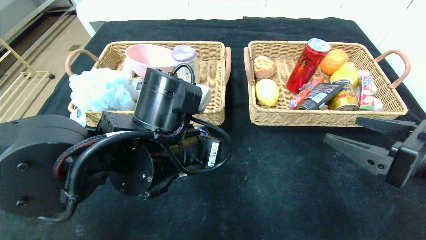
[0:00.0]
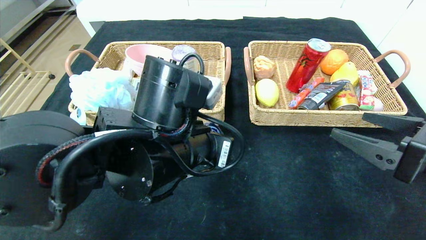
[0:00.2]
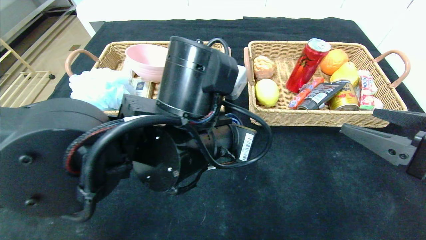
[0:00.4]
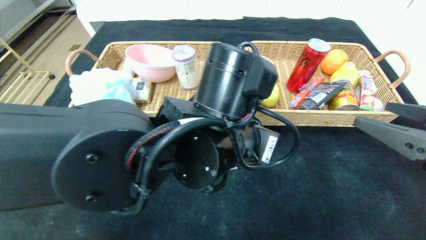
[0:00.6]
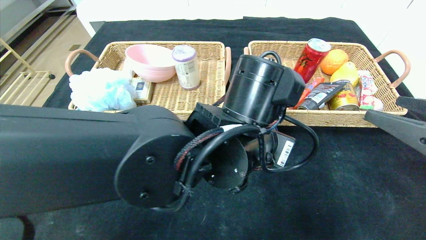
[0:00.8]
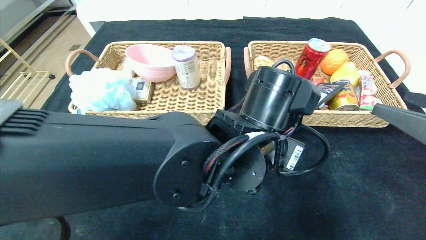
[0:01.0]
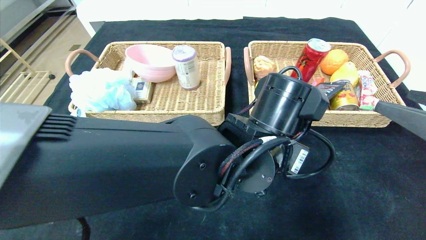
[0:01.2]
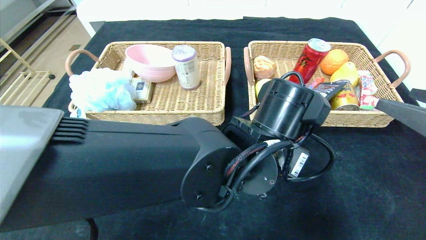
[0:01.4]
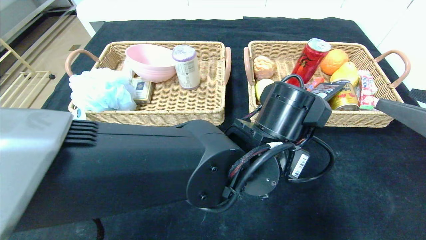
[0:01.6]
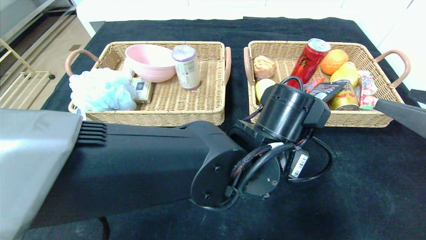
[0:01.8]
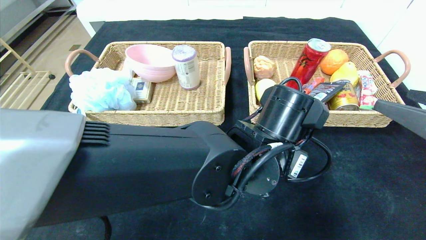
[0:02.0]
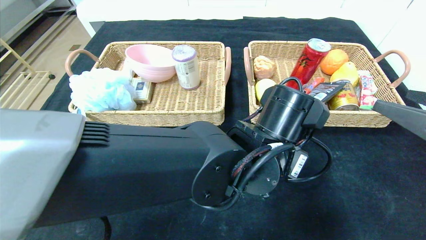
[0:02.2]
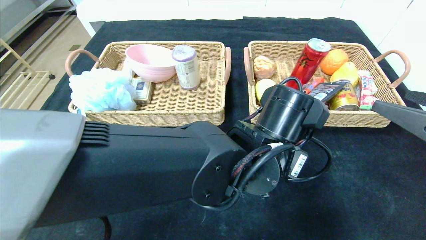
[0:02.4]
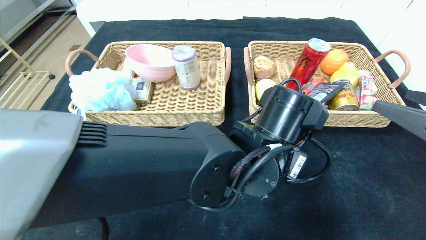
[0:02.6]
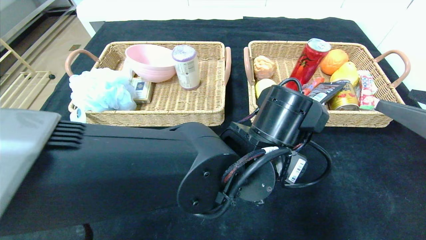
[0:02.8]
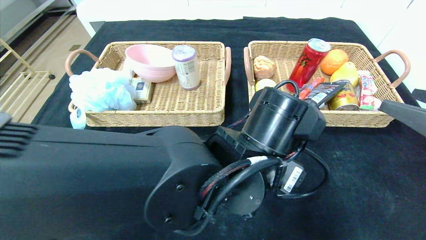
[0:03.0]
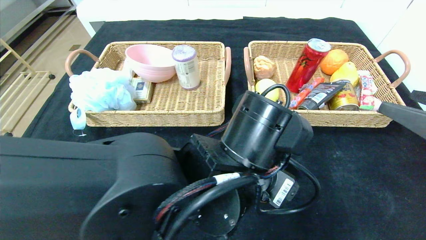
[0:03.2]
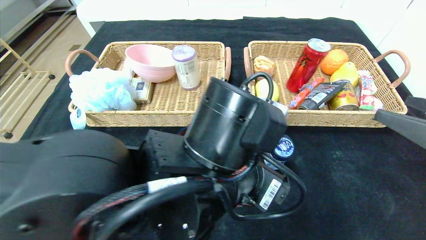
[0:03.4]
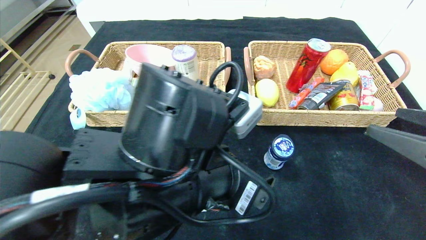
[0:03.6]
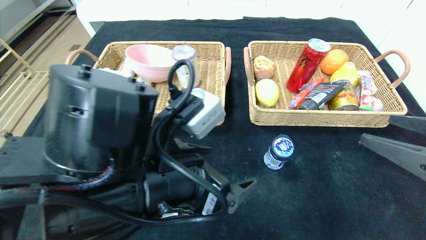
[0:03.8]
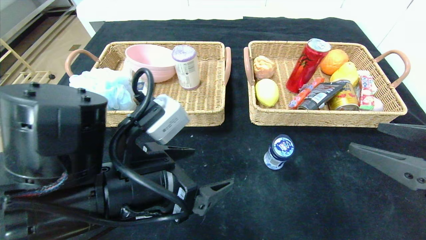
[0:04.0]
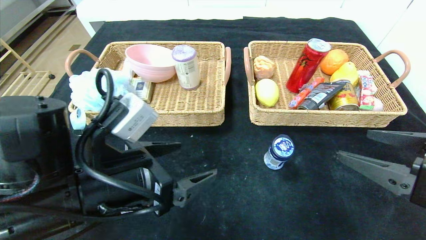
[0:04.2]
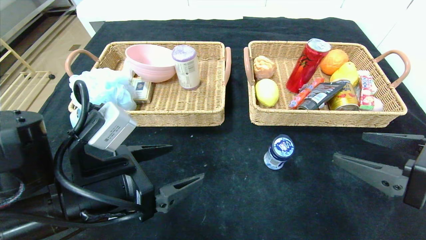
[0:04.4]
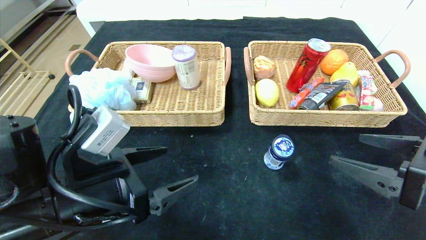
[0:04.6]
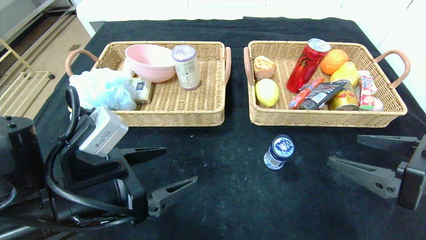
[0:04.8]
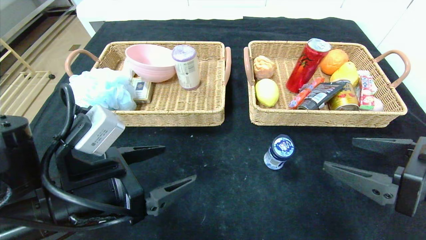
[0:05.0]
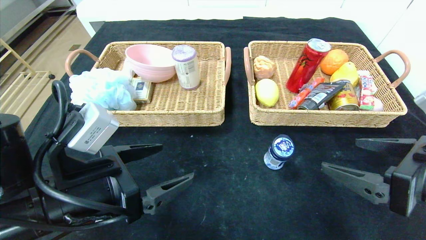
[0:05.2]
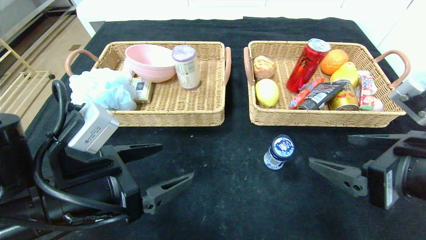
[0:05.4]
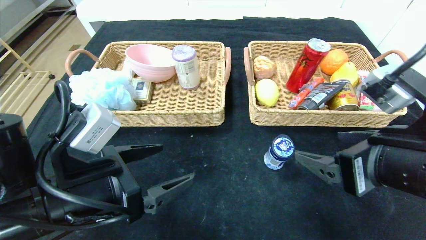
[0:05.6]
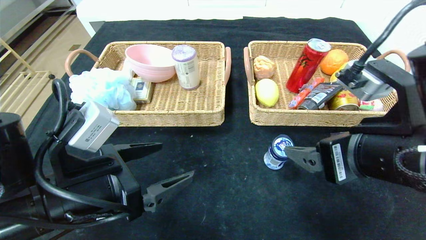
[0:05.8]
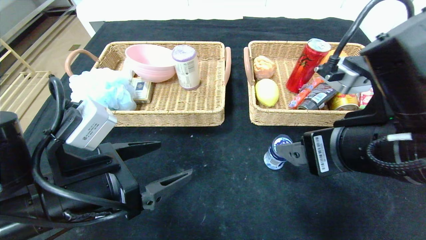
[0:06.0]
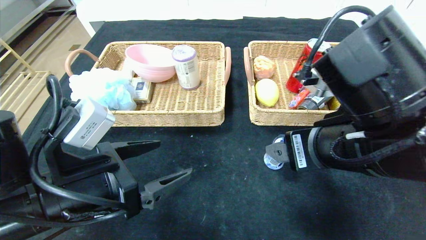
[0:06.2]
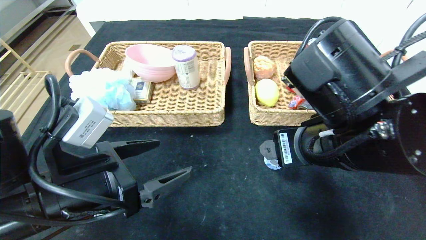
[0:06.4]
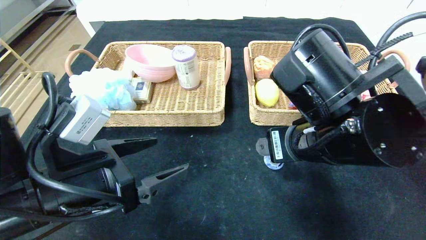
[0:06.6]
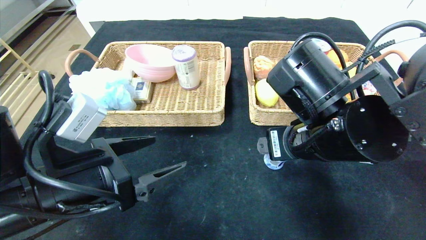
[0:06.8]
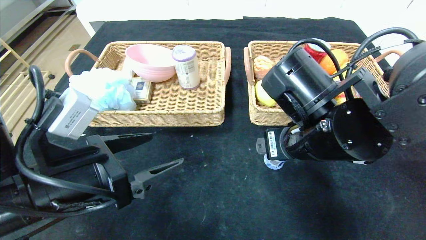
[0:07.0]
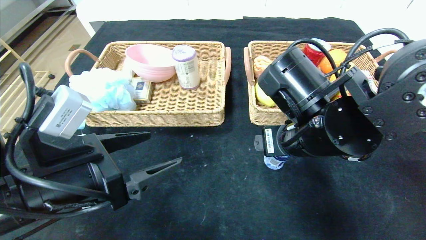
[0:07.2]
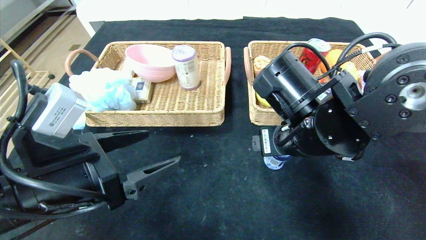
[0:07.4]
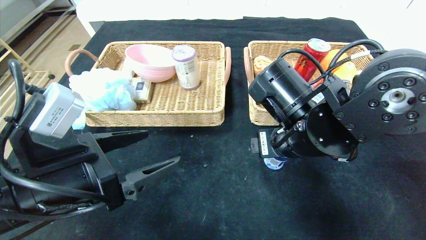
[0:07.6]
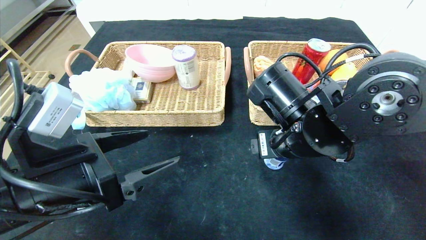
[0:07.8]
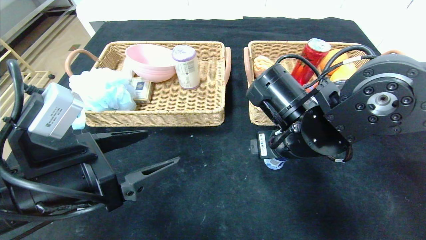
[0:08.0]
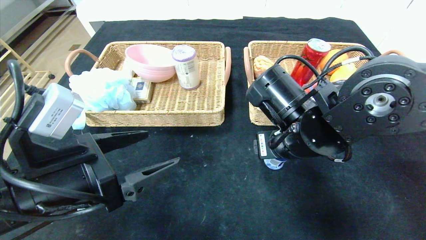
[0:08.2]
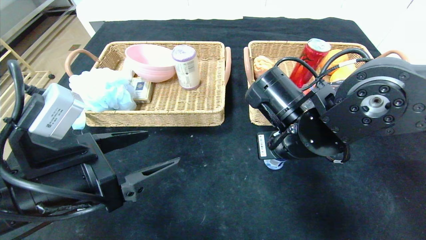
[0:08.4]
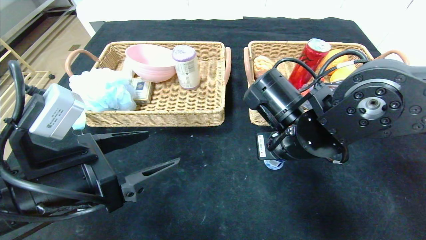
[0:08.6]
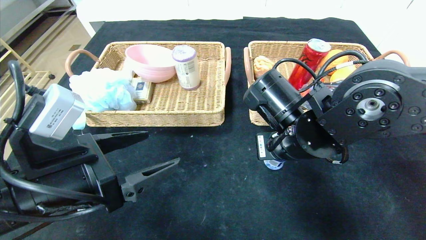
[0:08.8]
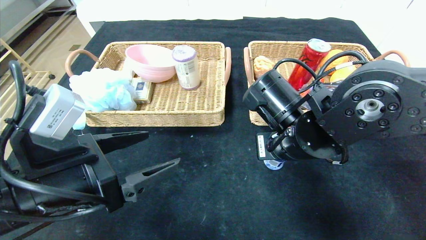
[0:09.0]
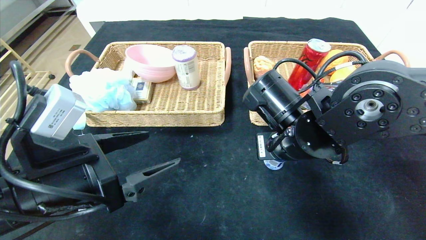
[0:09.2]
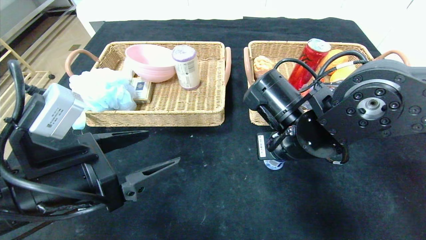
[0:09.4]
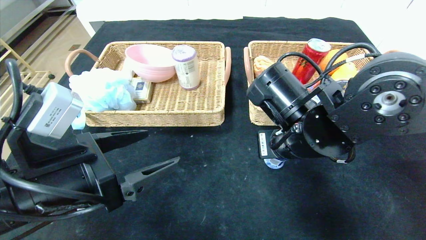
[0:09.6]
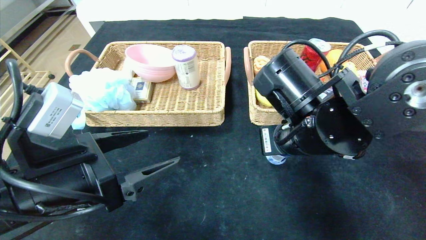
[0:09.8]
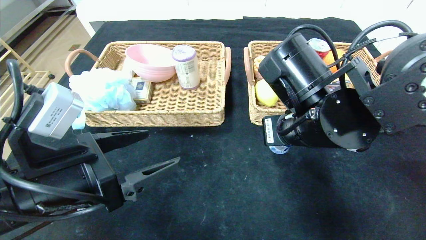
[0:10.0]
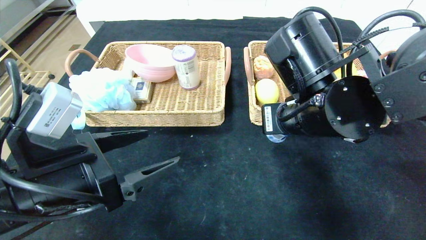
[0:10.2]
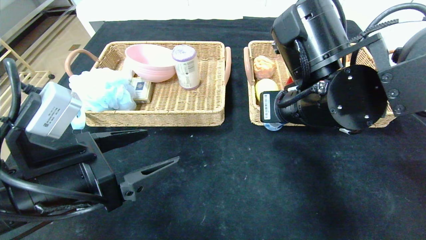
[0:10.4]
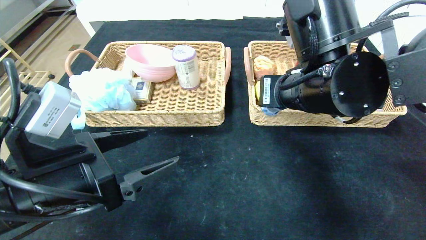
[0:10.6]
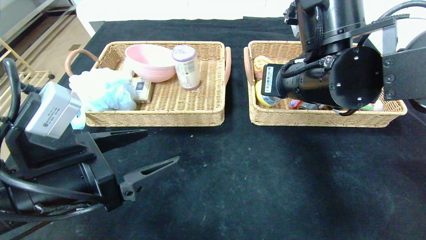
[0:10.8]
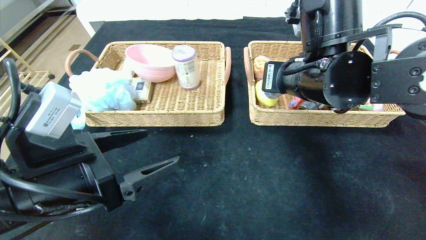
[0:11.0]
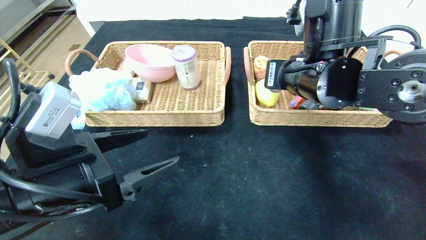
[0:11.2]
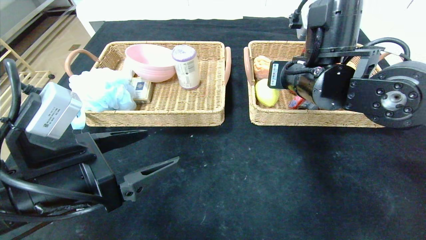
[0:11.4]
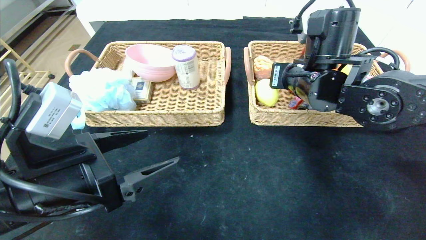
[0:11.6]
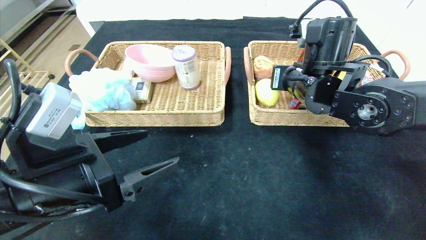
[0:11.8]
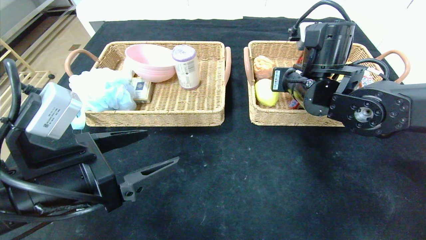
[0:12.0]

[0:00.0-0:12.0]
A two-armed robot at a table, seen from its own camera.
Step, 0:00.0 to 0:03.4: Place the round chewing gum in the center of the table.
0:00.0 to 0:01.6: The left gripper travels to the right by roughly 15 cm, while the right gripper changes place by approximately 5 cm.
0:01.6 to 0:03.0: The left gripper opens its fingers.
0:03.0 to 0:04.4: The left gripper goes some 20 cm to the left.
0:04.4 to 0:06.0: The right gripper travels to the left by roughly 10 cm.
0:06.0 to 0:07.6: The right gripper shifts some 10 cm forward.
0:07.6 to 0:09.0: The right gripper closes its fingers.
0:09.0 to 0:10.4: The right gripper goes roughly 5 cm upward.
0:10.4 to 0:12.0: The right gripper goes roughly 10 cm forward.

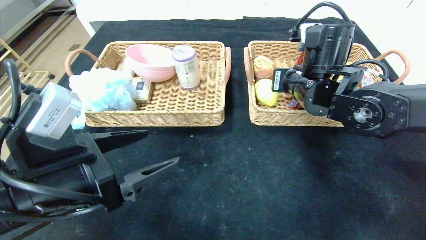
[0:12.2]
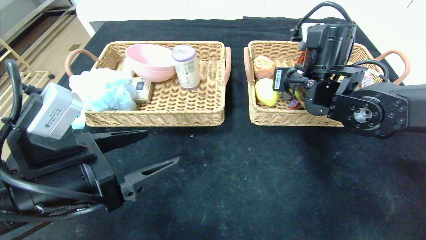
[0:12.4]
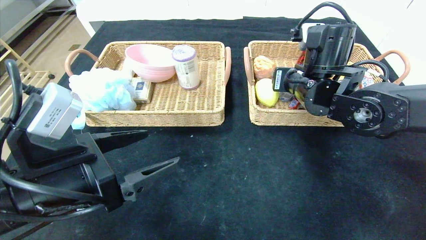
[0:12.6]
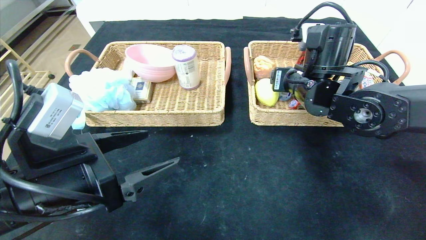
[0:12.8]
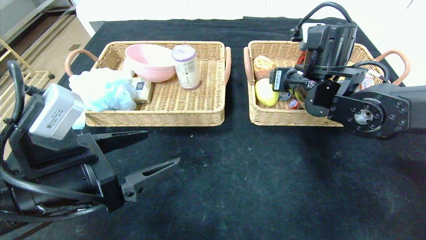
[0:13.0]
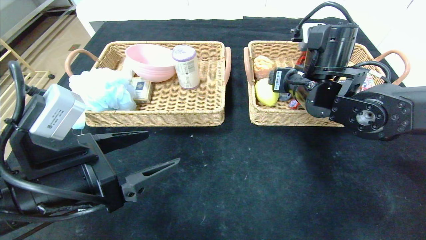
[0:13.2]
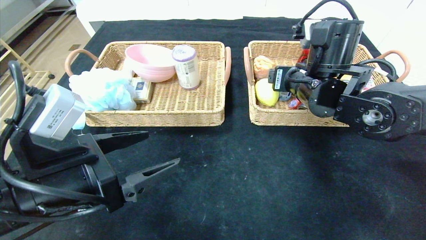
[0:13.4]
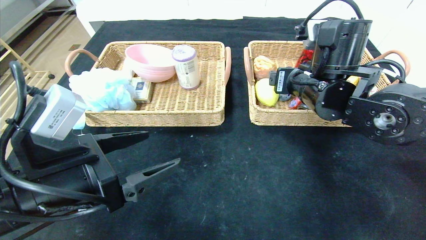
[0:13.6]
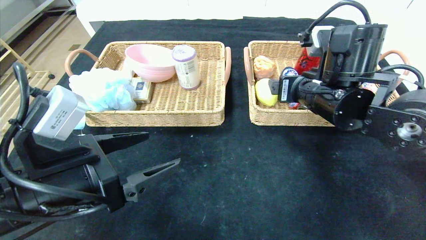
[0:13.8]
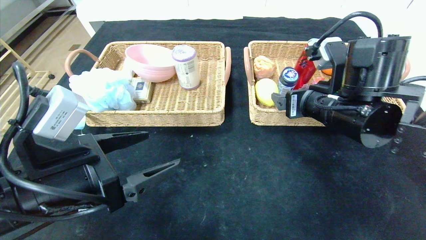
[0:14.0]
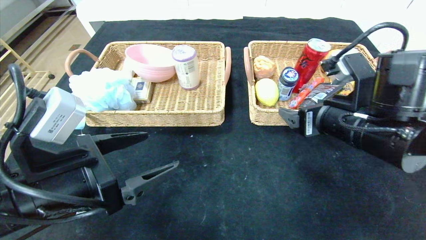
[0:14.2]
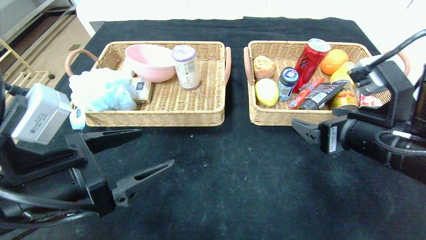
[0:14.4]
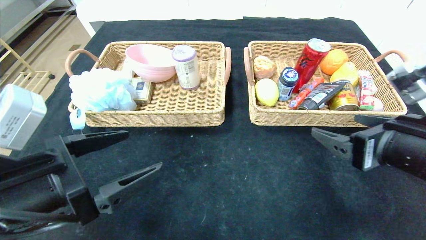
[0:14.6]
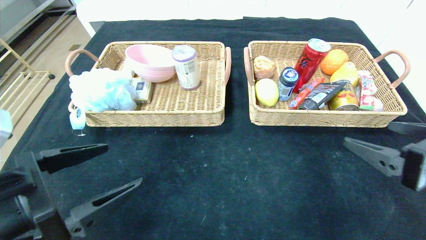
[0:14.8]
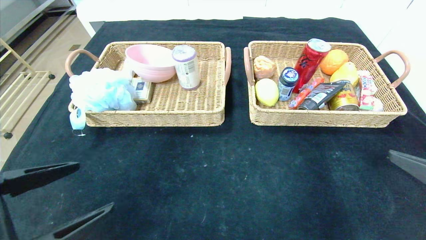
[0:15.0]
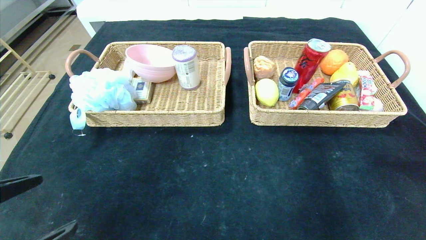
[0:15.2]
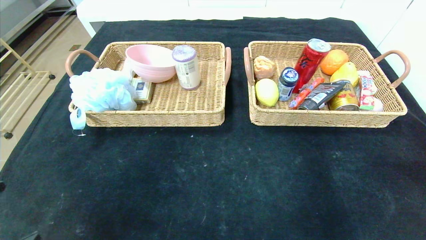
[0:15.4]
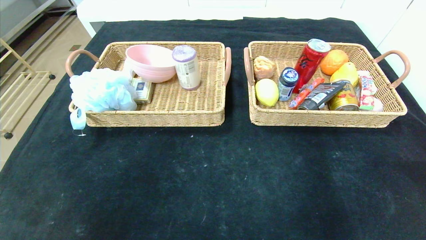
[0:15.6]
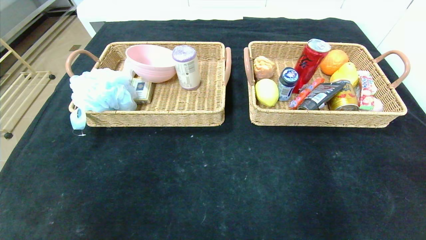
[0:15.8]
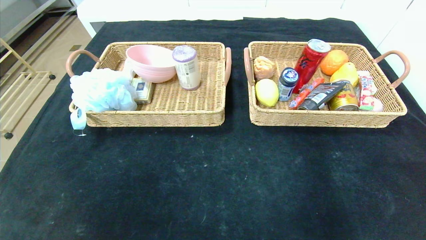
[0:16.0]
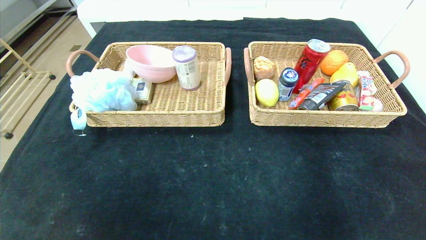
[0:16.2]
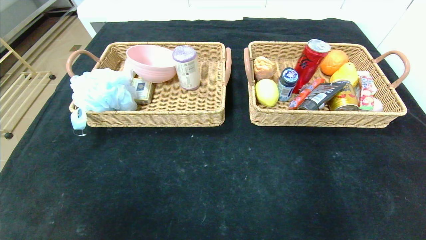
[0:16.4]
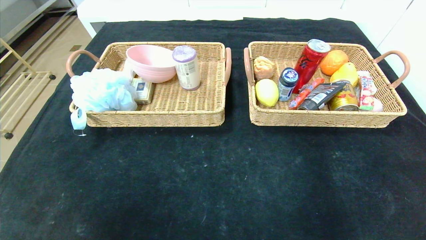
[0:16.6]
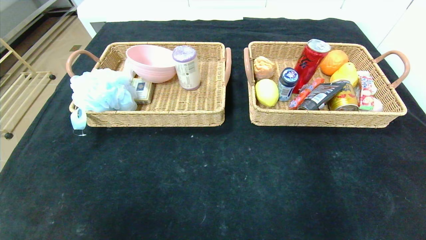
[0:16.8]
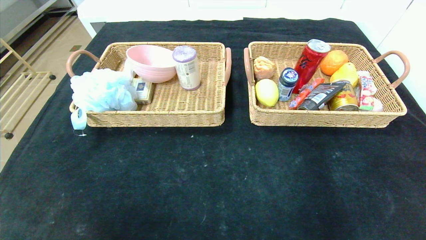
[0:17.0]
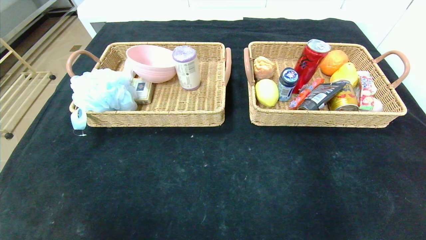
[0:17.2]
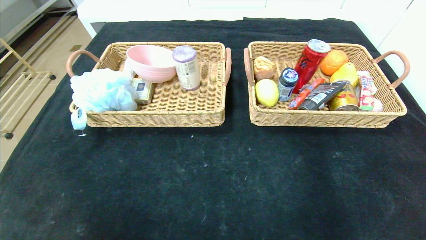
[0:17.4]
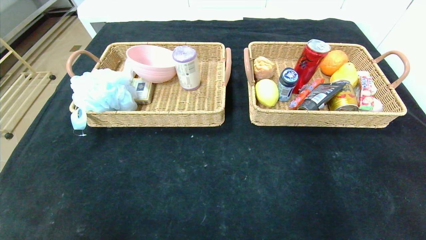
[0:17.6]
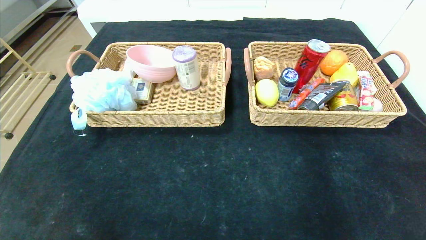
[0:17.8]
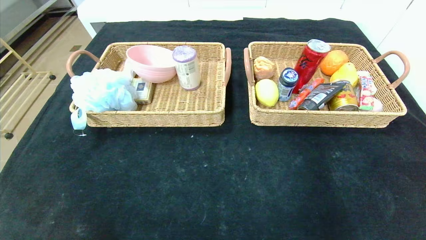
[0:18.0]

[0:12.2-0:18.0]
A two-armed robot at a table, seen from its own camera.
0:12.2 to 0:13.6: The right gripper opens.
0:13.6 to 0:15.0: The right gripper travels backward and to the right by approximately 25 cm. Meanwhile the left gripper goes roughly 10 cm backward.
0:15.0 to 0:16.6: The right gripper moves backward and downward, about 20 cm. Meanwhile the left gripper moves backward, about 15 cm.
